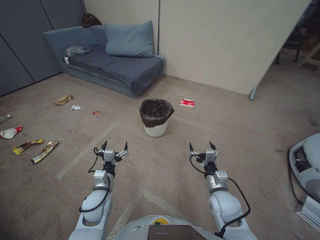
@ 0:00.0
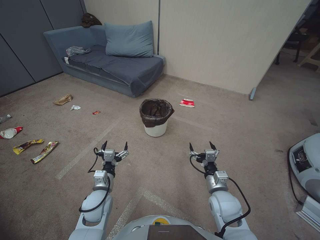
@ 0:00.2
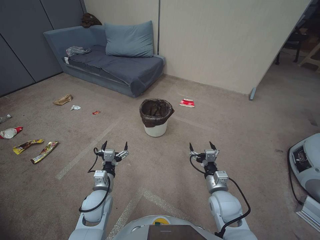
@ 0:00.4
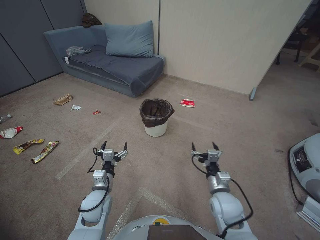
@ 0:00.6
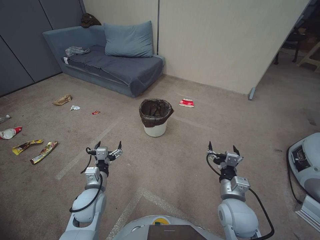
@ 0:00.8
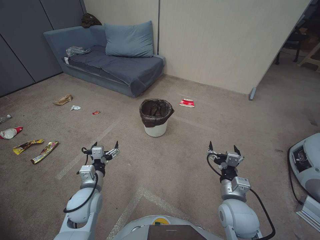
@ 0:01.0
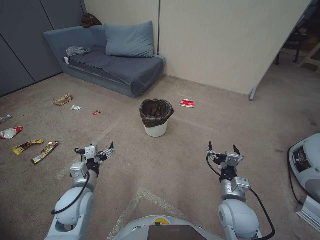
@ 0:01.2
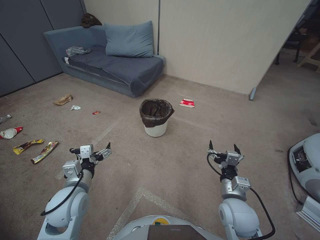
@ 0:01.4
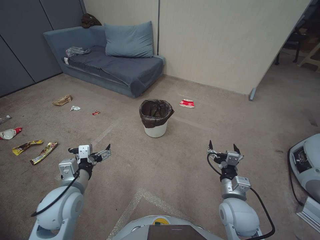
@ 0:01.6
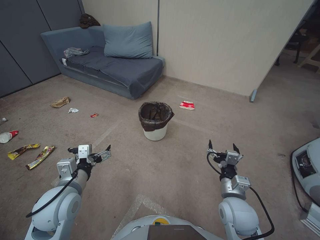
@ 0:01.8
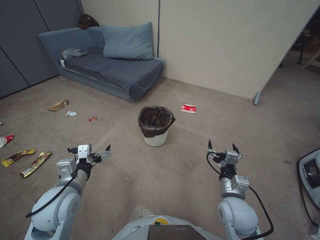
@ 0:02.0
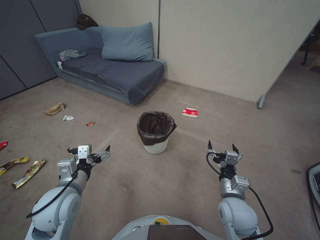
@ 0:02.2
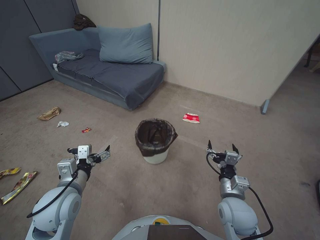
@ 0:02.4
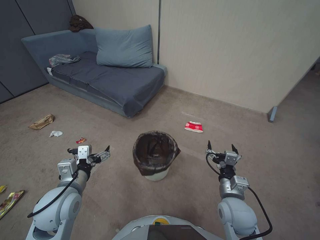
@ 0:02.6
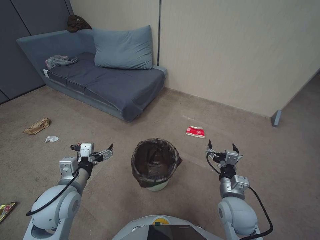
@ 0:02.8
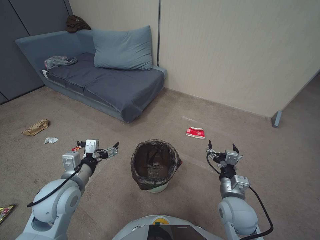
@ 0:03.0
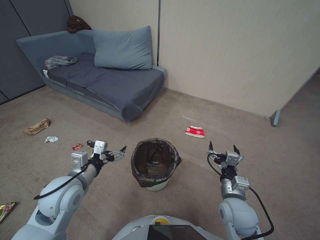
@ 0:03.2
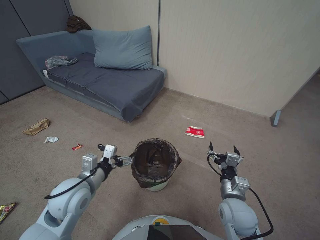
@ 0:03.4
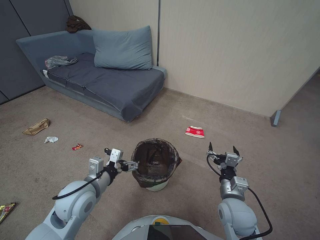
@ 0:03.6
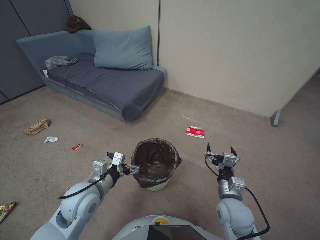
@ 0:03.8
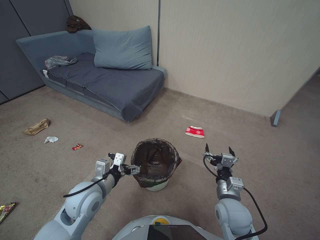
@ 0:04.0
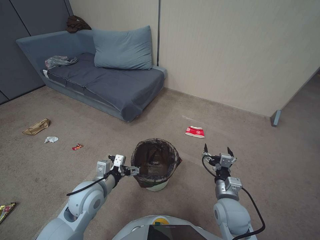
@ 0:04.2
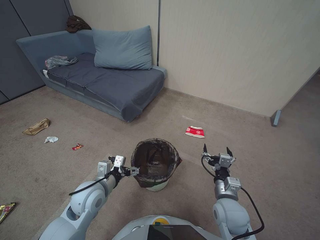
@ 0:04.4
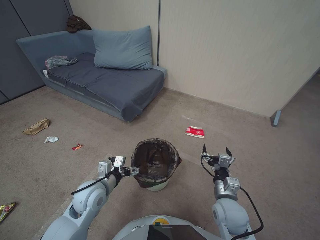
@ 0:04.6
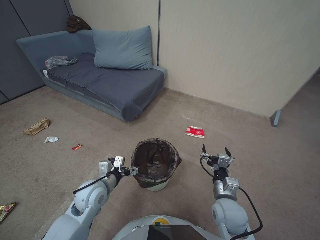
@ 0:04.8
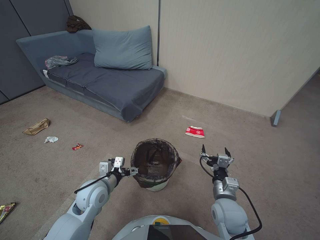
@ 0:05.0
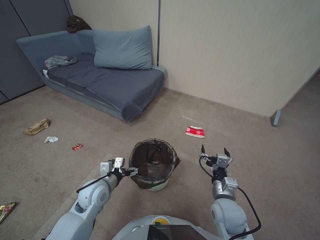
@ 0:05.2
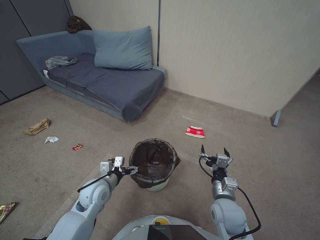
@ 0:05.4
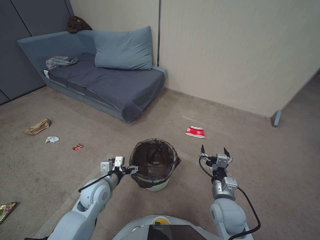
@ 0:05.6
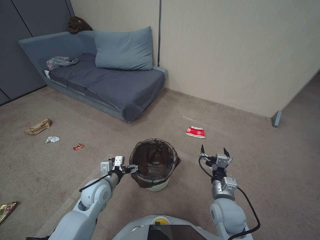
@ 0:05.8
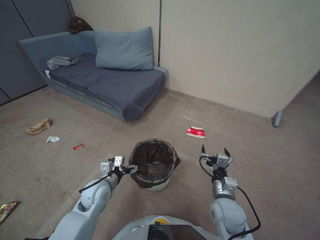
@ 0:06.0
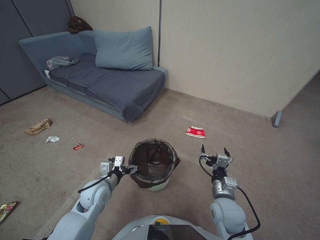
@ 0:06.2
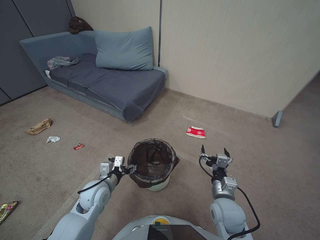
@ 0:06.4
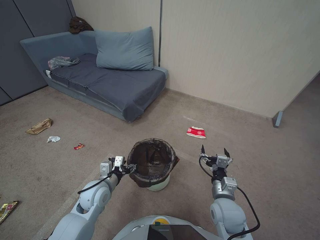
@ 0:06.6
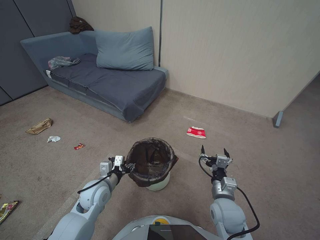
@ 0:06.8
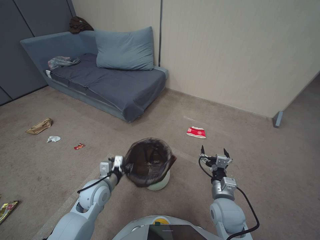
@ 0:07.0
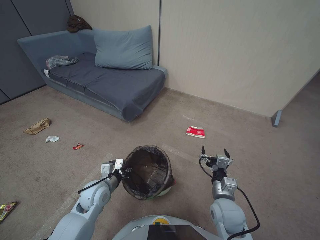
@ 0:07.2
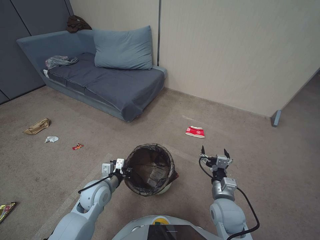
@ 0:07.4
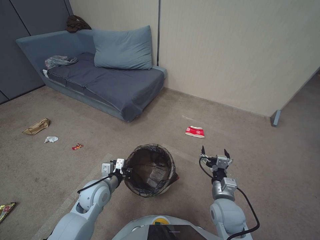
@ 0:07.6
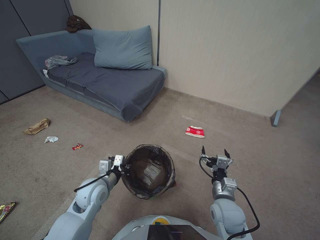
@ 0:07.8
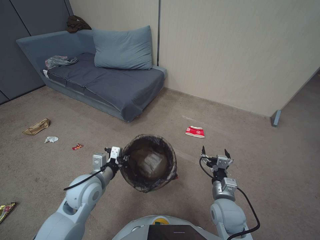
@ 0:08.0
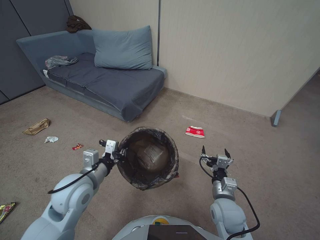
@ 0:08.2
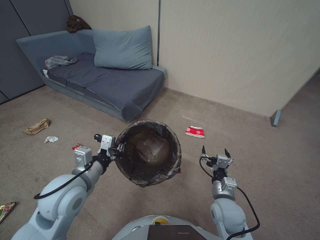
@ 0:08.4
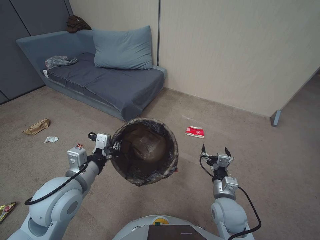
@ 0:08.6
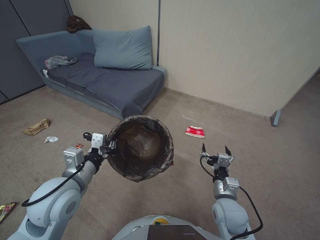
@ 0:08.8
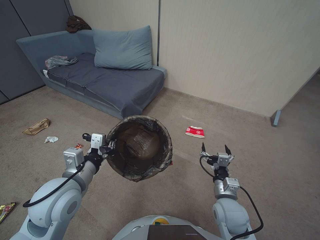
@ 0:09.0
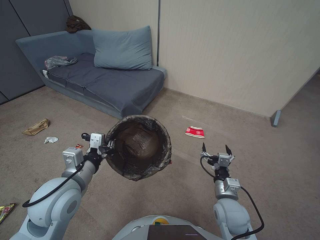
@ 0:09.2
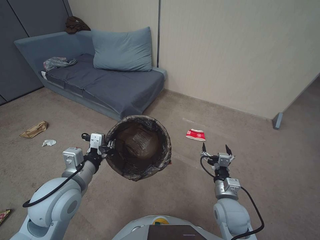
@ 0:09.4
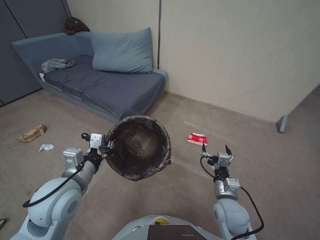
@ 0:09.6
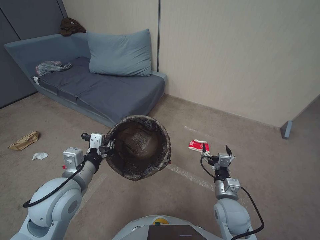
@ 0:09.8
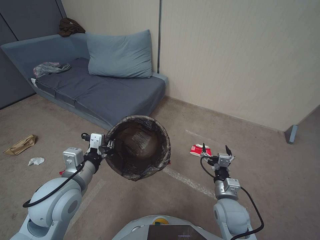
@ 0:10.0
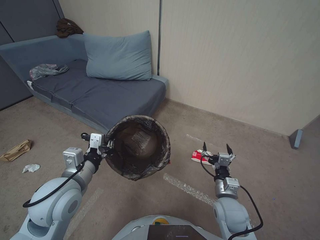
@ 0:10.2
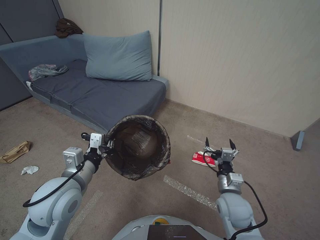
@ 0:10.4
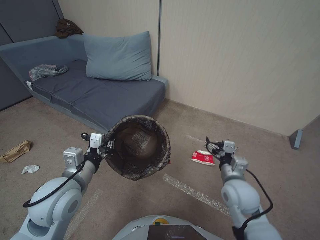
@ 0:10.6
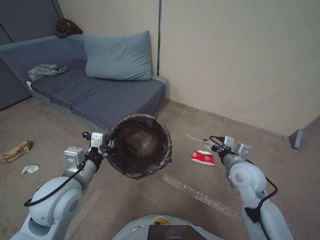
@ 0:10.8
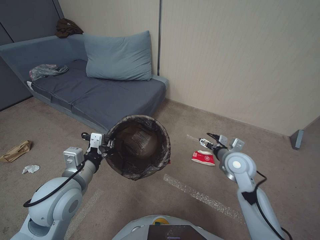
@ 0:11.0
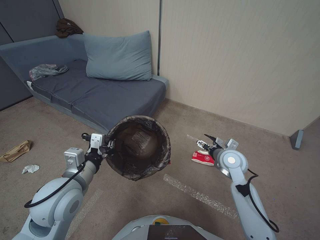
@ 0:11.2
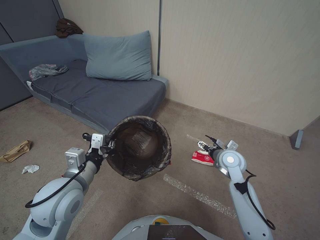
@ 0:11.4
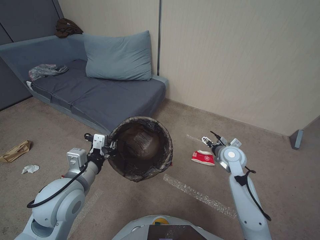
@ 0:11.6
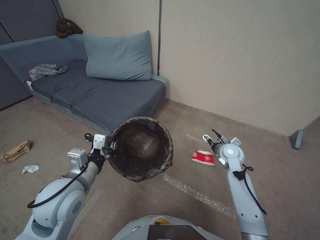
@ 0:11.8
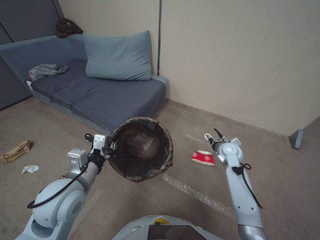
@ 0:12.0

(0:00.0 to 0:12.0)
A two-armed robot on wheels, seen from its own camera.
Task of the whole recording: Pick up the trash bin, then pick up the garbage from the floor and place it into the trash bin.
0:03.0 - 0:04.4: The left gripper travels downward by approximately 10 cm.
0:04.4 - 0:06.0: The left gripper shifts roughly 5 cm downward.
0:06.0 - 0:07.6: The left gripper closes.
0:07.6 - 0:09.0: The left gripper is displaced upward by about 15 cm.
0:09.0 - 0:10.4: The two grippers keep their place.
0:10.4 - 0:12.0: The right gripper moves forward, about 20 cm.

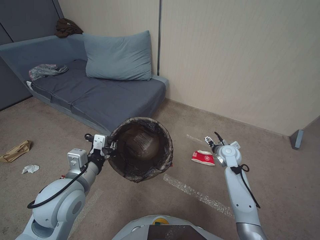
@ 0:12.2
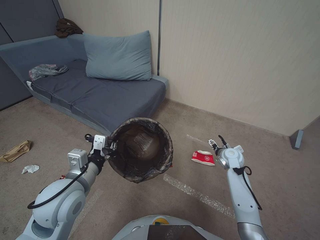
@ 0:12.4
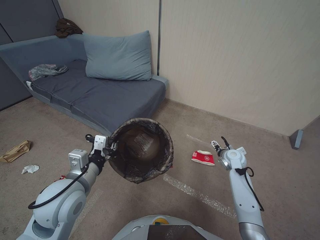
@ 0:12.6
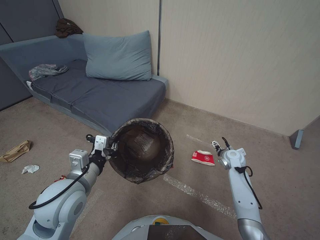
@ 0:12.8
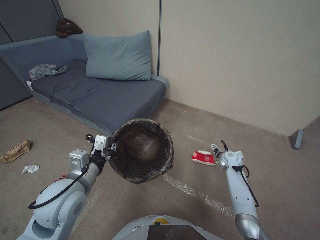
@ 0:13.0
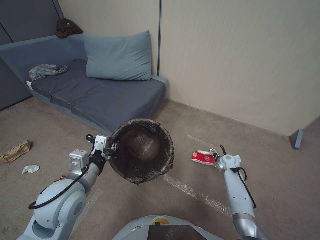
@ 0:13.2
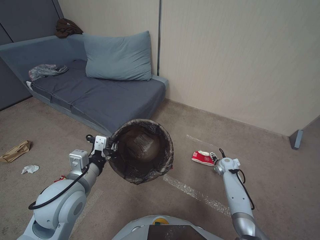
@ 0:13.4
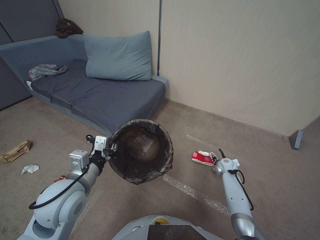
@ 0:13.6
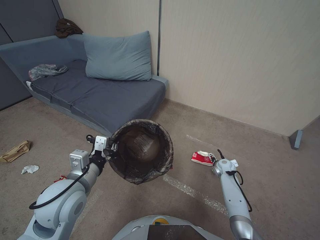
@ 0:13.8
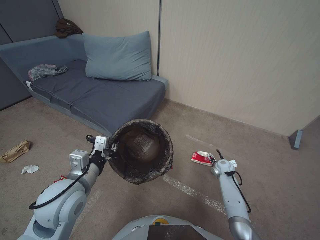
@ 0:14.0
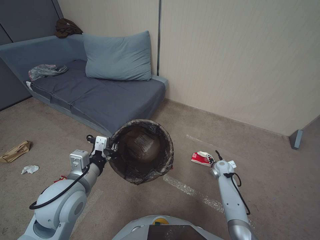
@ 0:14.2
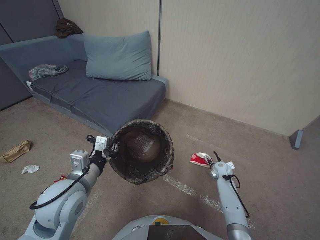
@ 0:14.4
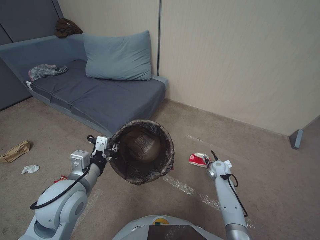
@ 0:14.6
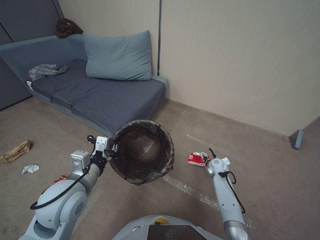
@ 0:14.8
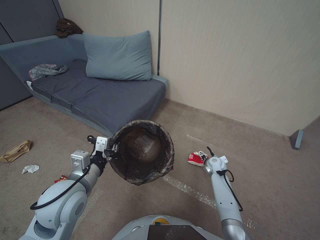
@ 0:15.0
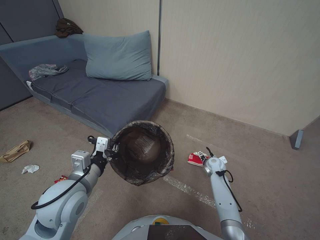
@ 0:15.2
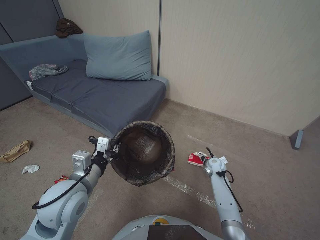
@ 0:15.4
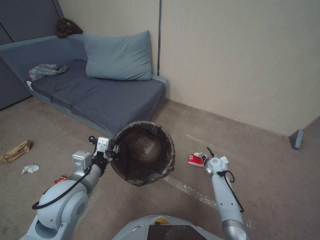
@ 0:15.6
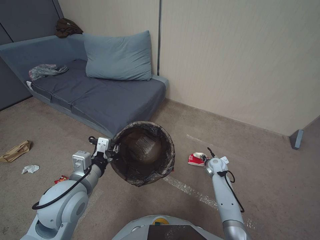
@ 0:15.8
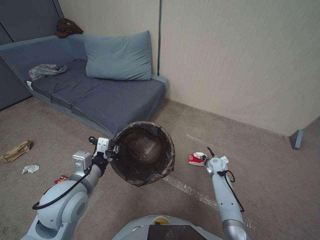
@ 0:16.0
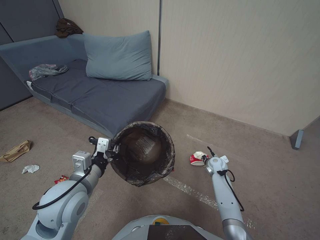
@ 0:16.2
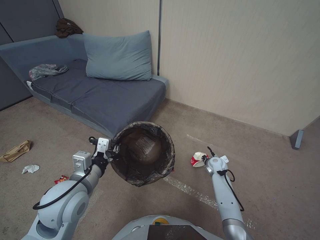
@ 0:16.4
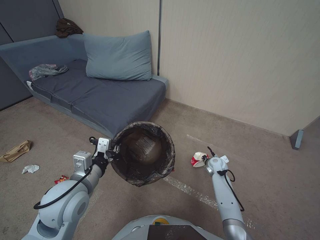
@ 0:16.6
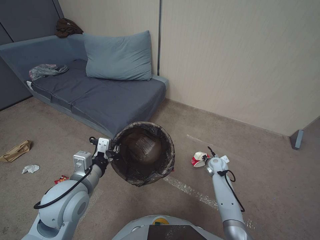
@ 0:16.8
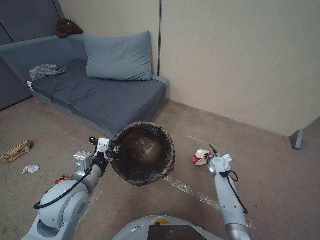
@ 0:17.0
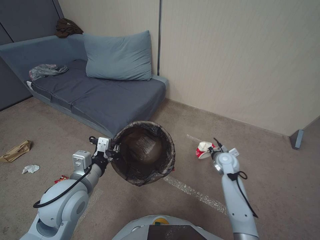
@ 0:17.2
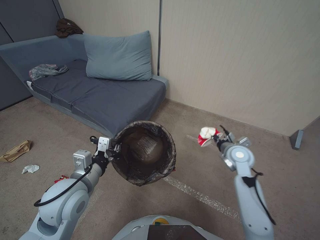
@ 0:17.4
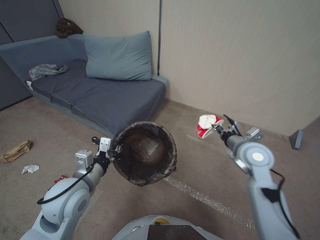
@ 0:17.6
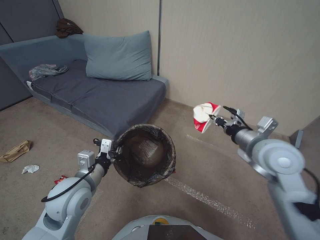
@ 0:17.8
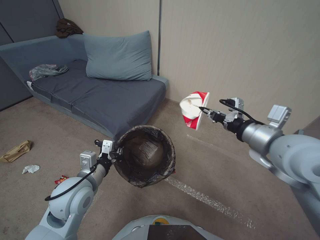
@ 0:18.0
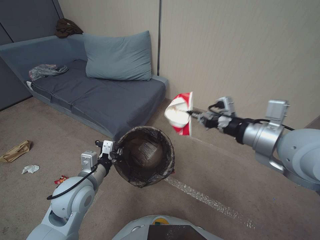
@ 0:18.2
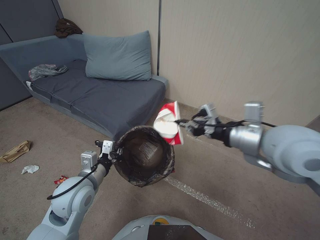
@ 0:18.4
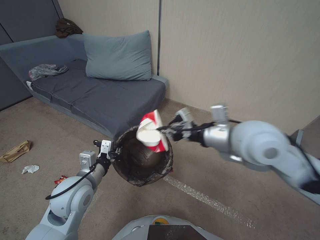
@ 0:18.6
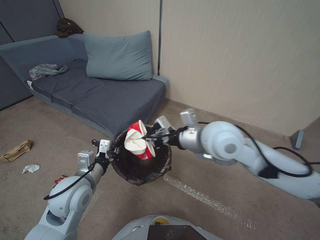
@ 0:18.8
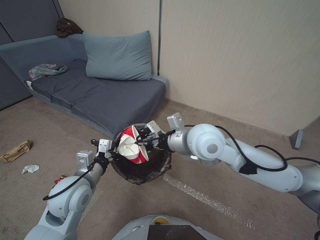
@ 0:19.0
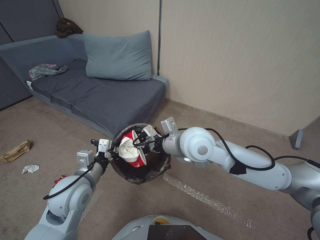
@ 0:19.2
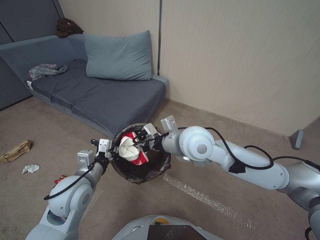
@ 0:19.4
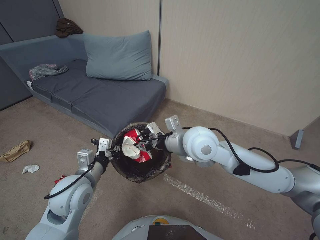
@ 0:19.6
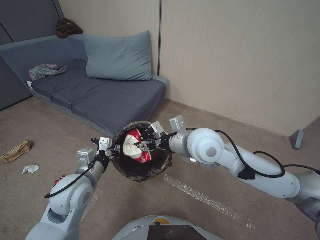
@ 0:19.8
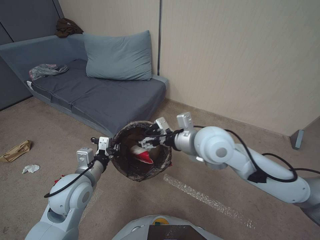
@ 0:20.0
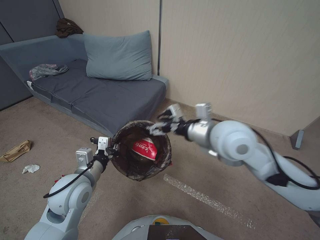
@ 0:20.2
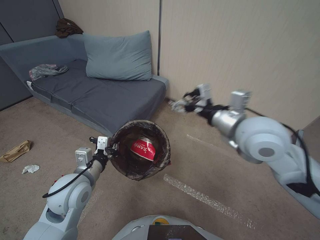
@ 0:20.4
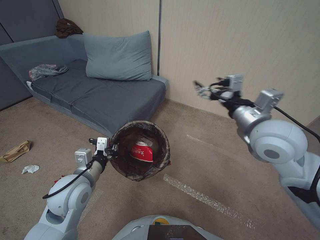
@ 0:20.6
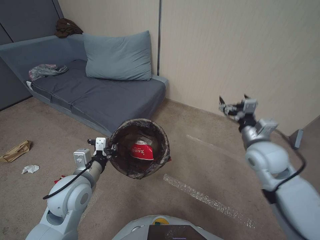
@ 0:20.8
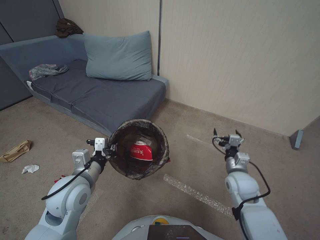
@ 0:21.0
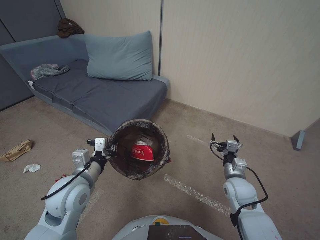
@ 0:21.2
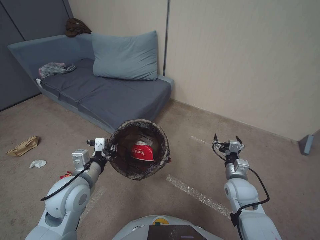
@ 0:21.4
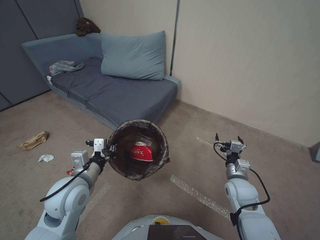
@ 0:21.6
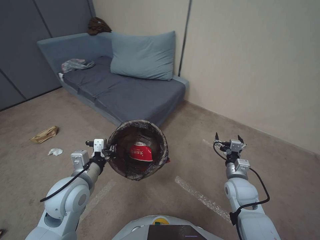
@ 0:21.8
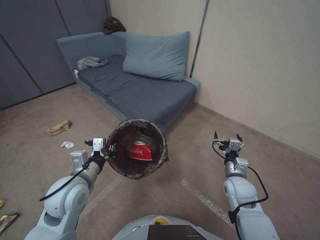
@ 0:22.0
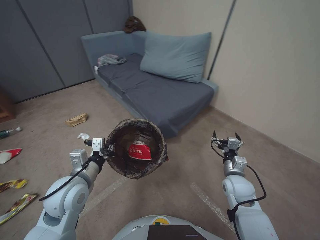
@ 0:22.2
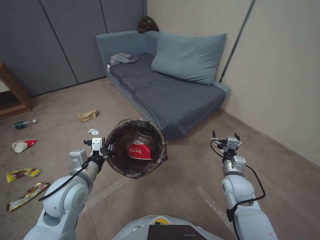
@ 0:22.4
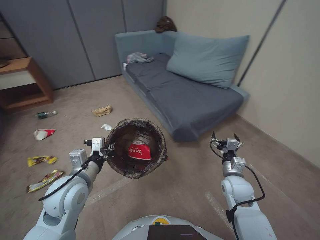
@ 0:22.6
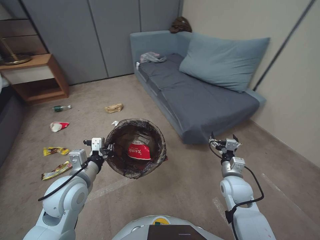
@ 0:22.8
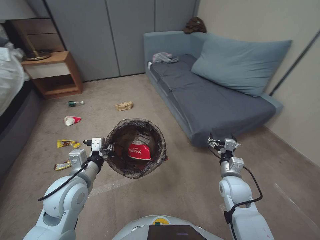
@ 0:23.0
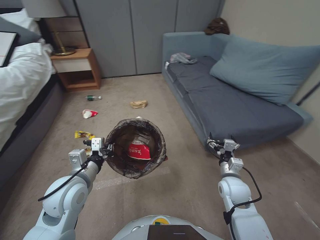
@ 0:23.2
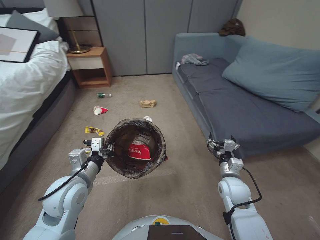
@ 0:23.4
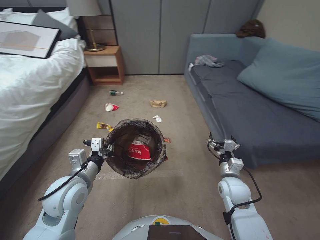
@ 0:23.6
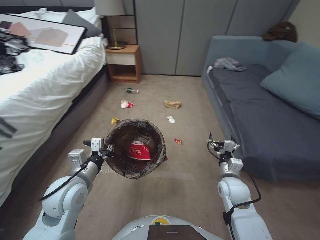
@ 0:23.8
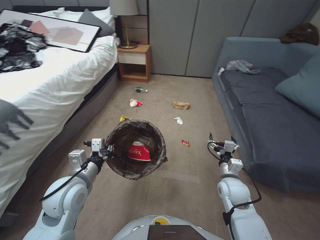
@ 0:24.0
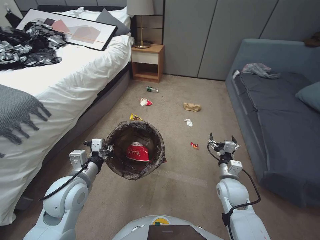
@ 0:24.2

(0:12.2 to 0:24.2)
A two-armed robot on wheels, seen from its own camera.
Task of the whole recording: Pick up the trash bin, then pick up the garbage from the floor and place it into the trash bin.
0:12.2 - 0:13.8: The right gripper goes about 20 cm downward.
0:13.8 - 0:15.2: The right gripper travels to the left by approximately 5 cm.
0:15.2 - 0:16.6: The right gripper closes its fingers.
0:16.6 - 0:18.2: The right gripper goes about 40 cm upward.
0:18.2 - 0:19.8: The right gripper moves to the left, downward and forward, some 20 cm, and opens up.
0:19.8 - 0:21.2: The right gripper travels downward and to the right by roughly 30 cm, and opens.
